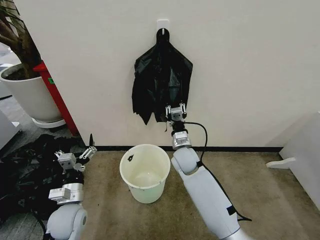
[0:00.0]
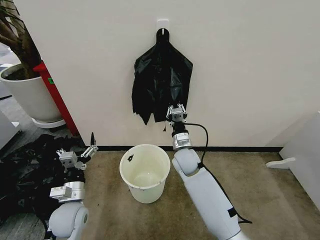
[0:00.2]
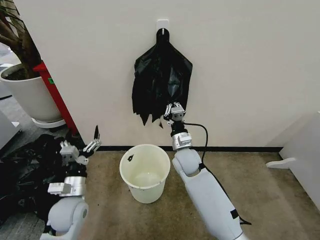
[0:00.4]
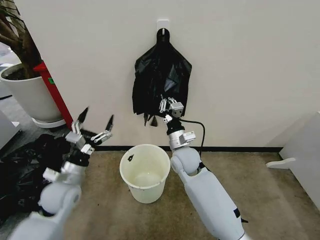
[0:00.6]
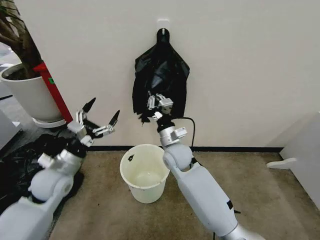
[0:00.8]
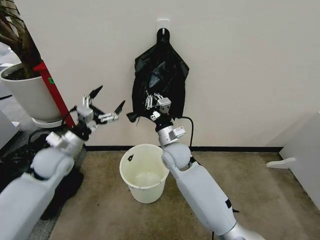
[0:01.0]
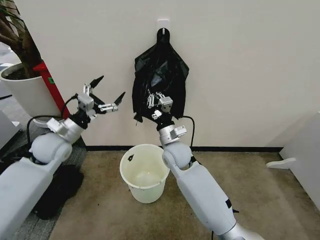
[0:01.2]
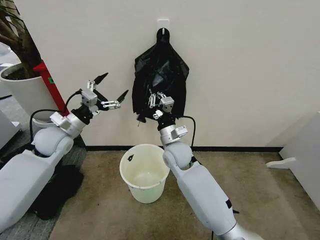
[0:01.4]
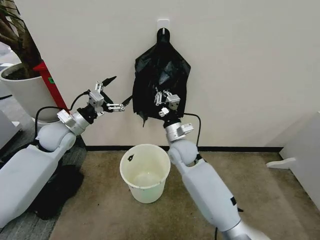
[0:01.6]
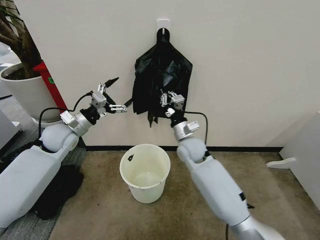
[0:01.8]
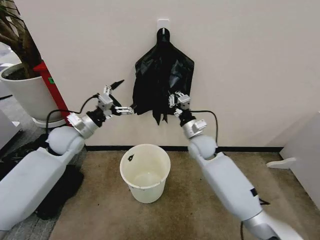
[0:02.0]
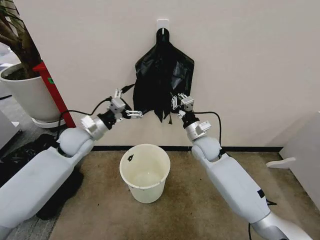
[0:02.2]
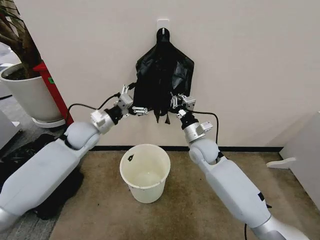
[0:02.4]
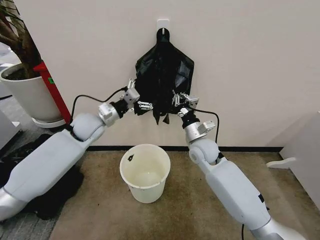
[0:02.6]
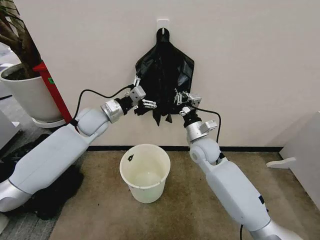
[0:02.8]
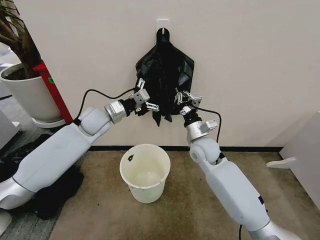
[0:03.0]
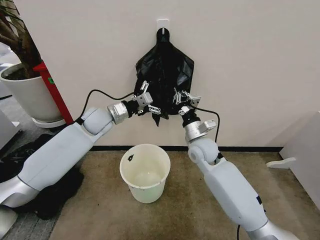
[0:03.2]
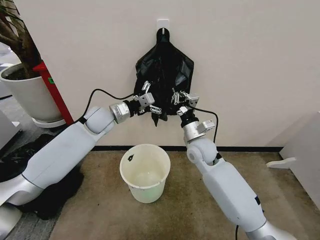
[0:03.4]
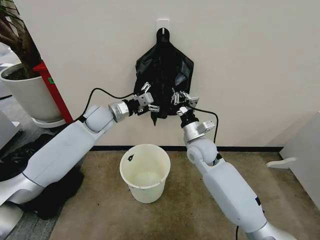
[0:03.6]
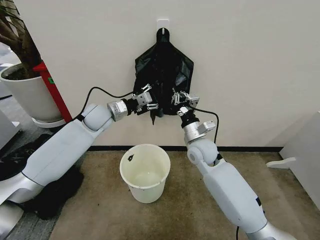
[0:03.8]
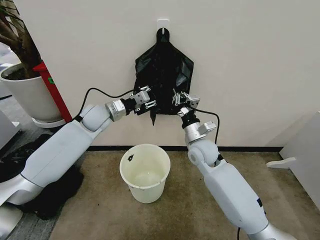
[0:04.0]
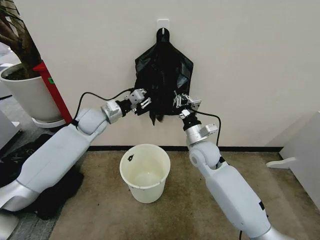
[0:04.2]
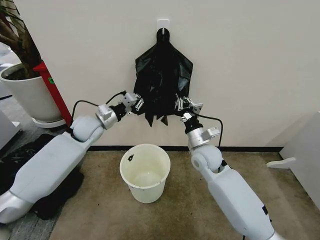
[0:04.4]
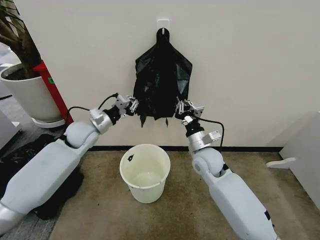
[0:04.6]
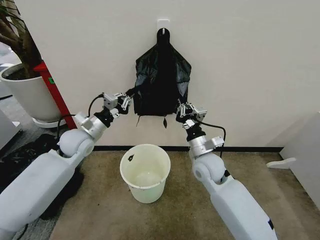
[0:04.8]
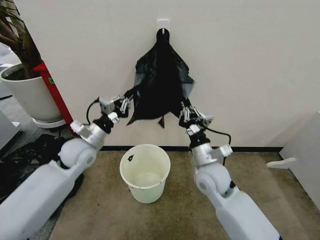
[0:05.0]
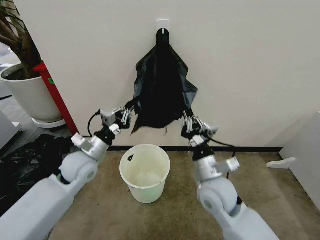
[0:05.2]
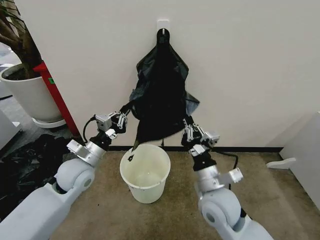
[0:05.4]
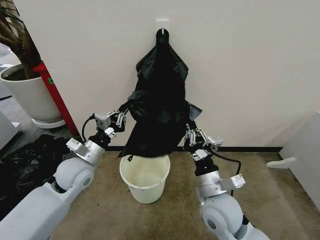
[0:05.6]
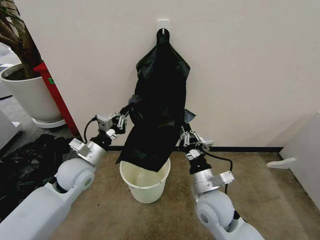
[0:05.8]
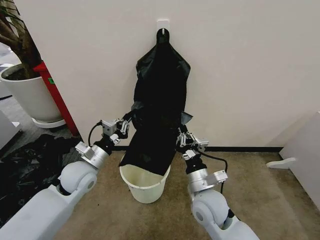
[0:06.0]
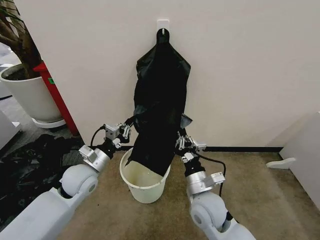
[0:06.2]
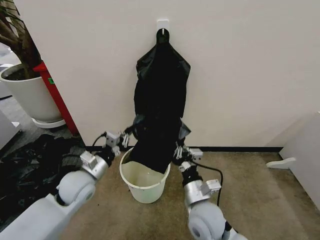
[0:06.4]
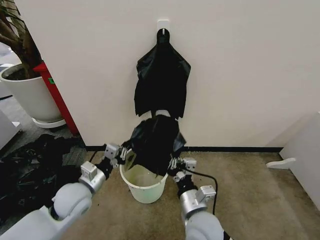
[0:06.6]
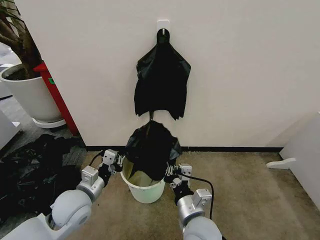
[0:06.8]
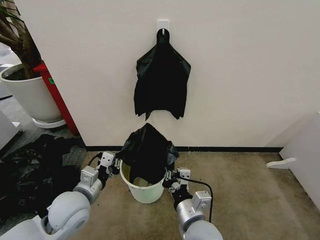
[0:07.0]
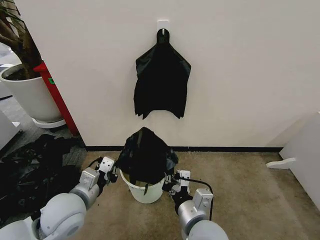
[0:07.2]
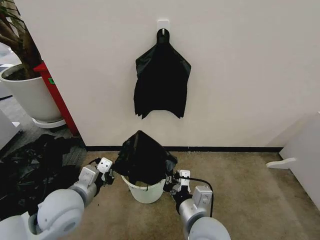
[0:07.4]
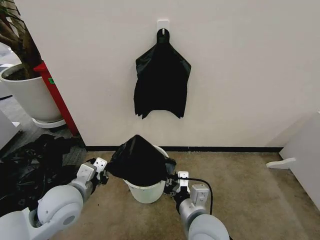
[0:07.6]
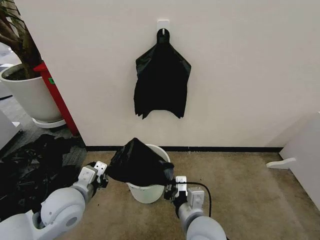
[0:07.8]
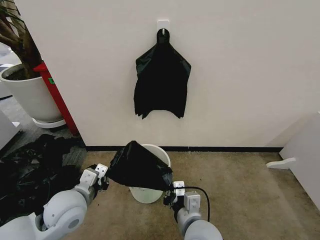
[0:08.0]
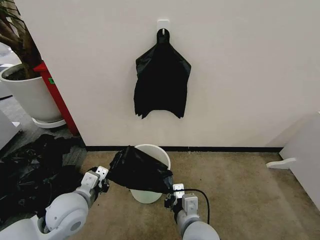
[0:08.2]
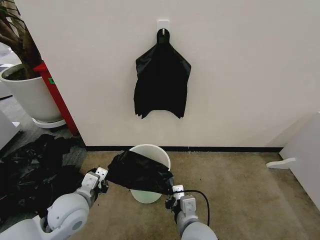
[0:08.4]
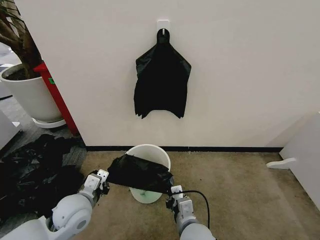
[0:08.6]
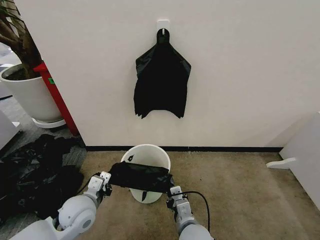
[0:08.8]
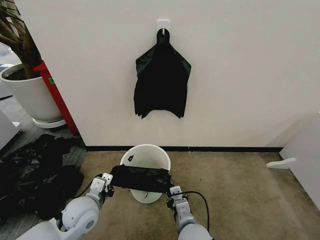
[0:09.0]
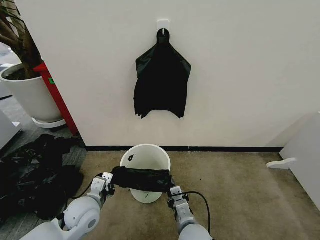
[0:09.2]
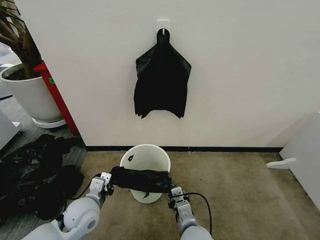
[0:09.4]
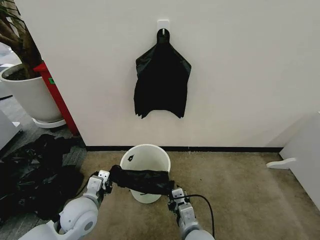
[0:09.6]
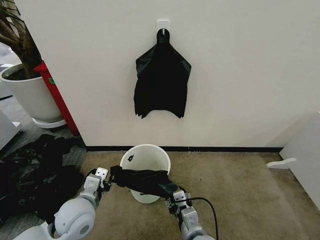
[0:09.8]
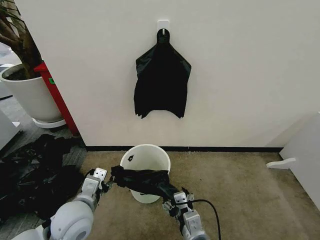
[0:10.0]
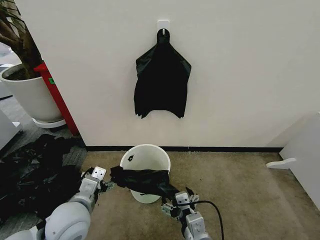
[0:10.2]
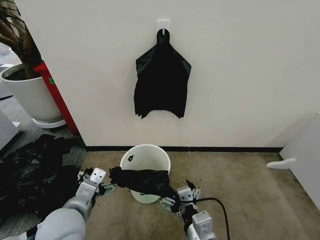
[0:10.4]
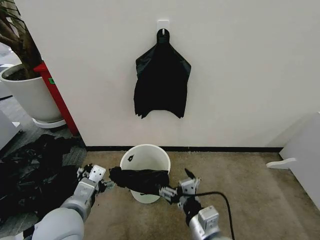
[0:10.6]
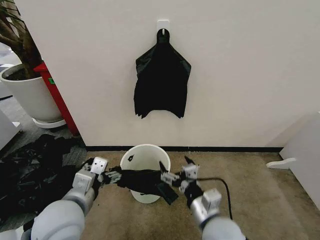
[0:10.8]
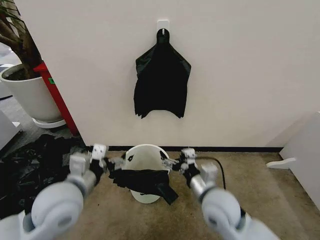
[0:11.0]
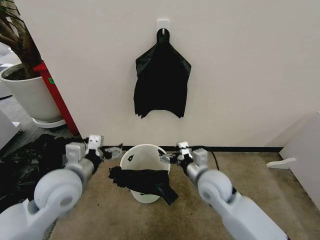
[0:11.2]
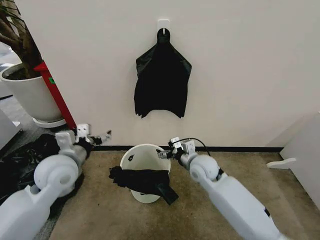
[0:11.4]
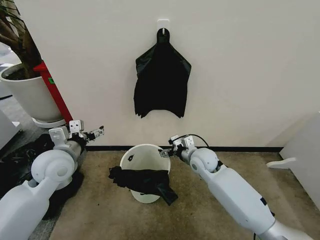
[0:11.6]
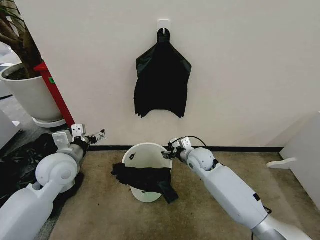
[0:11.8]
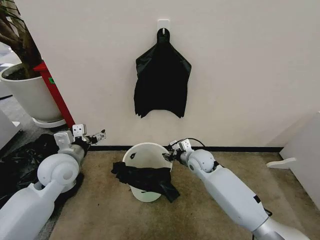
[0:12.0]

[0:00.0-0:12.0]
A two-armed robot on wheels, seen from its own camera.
Task of the whole recording: Place the garbage bag over the trash bin.
0.0 to 1.6 s: The right gripper travels upward by approximately 5 cm; the left gripper goes approximately 25 cm forward and upward.
1.6 to 3.0 s: The left gripper moves to the right and forward, roughly 15 cm, while the right gripper travels to the right by some 10 cm.
3.0 to 4.4 s: The left gripper closes up.
4.4 to 6.0 s: The right gripper travels backward by about 15 cm, while the left gripper shifts roughly 15 cm backward and downward.
6.0 to 7.6 s: The grippers both shift backward by some 10 cm.
7.6 to 9.0 s: Both grippers move downward, about 10 cm.
9.0 to 10.4 s: Both grippers move upward and backward, about 10 cm. The left gripper opens up; the right gripper opens its fingers.
10.4 to 12.0 s: The right gripper moves forward, about 30 cm, and closes up, while the left gripper heads forward and to the left, covering some 15 cm.

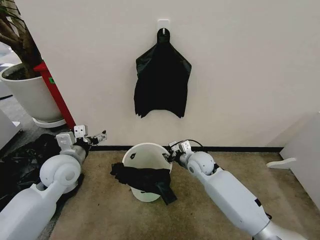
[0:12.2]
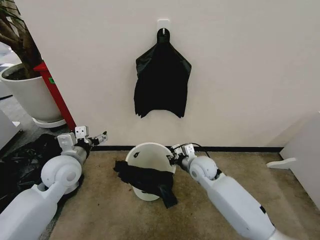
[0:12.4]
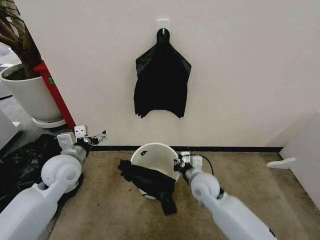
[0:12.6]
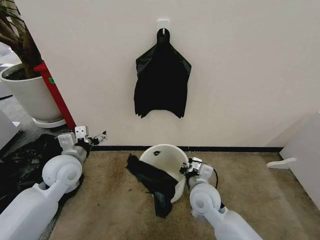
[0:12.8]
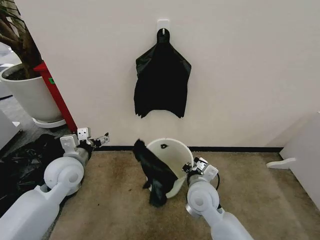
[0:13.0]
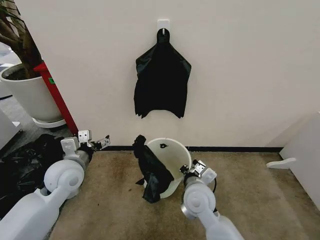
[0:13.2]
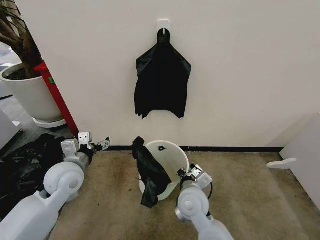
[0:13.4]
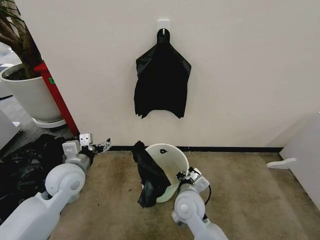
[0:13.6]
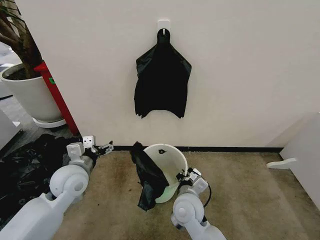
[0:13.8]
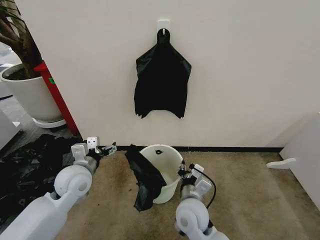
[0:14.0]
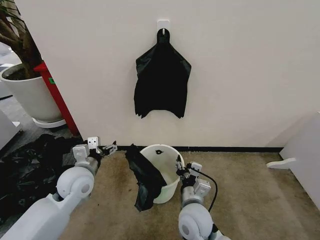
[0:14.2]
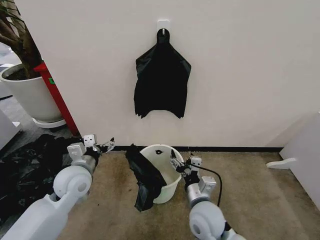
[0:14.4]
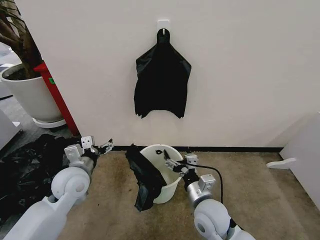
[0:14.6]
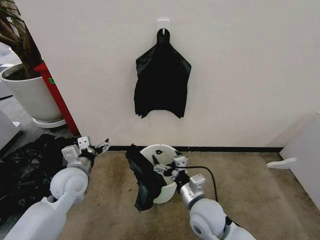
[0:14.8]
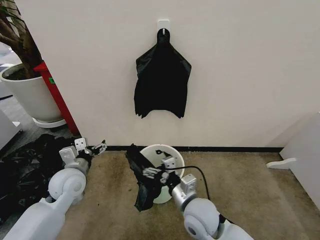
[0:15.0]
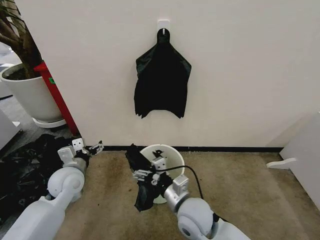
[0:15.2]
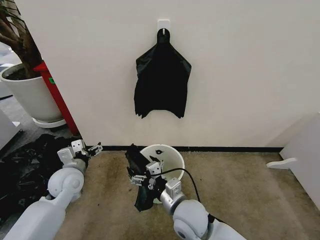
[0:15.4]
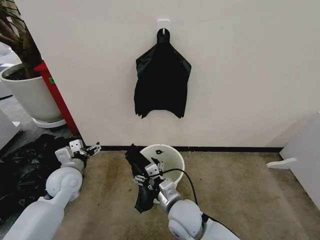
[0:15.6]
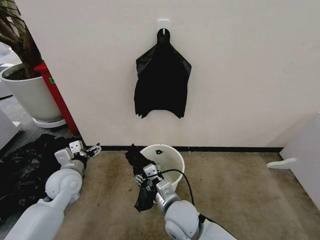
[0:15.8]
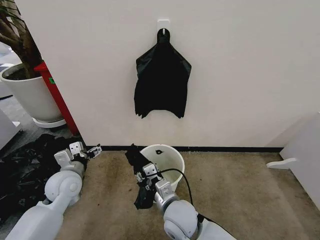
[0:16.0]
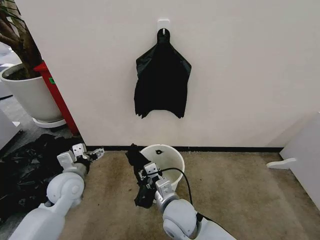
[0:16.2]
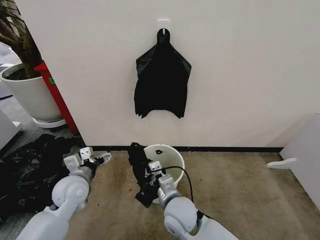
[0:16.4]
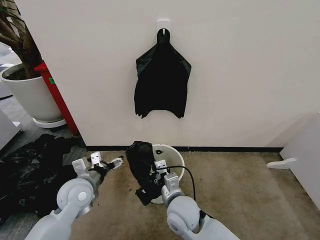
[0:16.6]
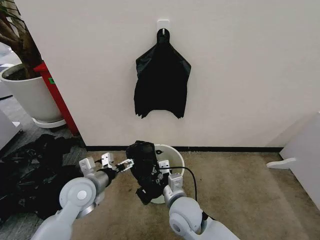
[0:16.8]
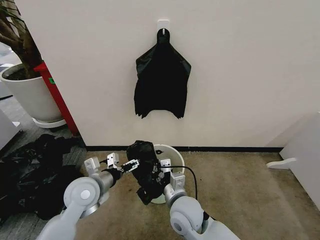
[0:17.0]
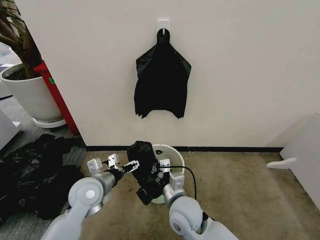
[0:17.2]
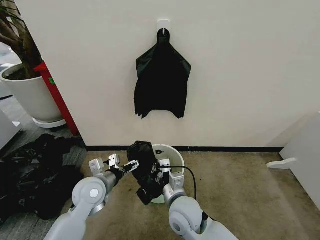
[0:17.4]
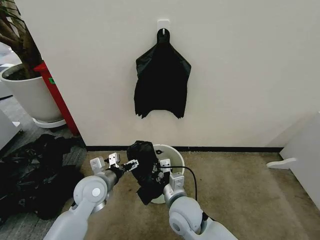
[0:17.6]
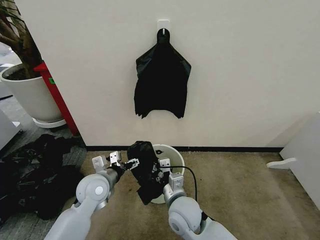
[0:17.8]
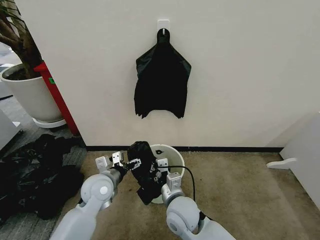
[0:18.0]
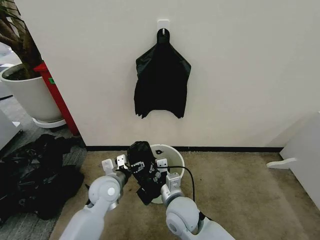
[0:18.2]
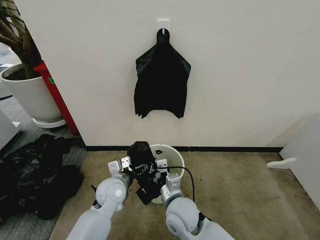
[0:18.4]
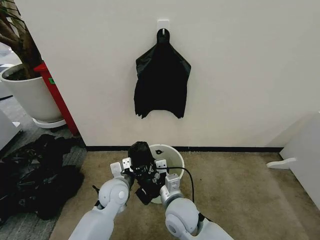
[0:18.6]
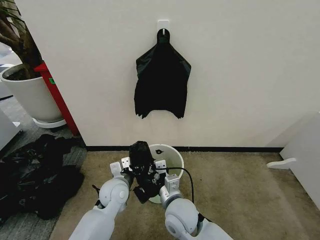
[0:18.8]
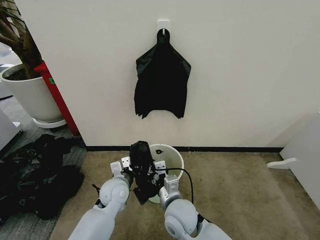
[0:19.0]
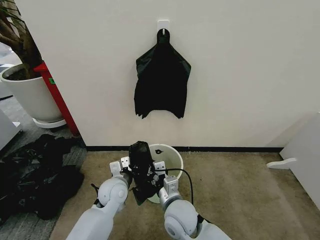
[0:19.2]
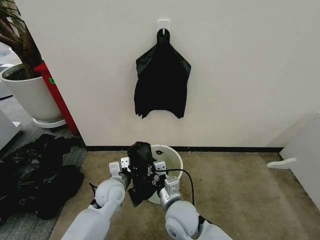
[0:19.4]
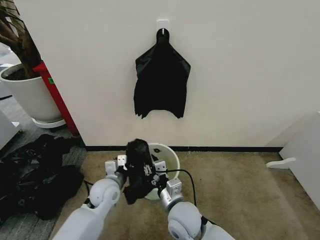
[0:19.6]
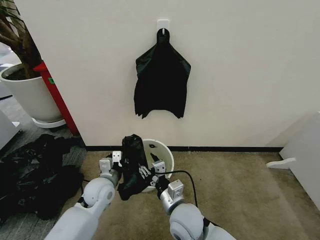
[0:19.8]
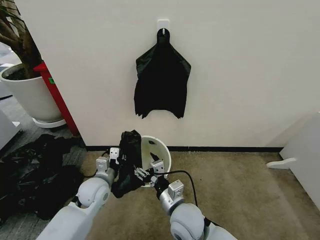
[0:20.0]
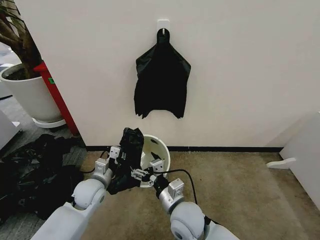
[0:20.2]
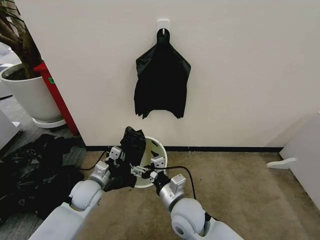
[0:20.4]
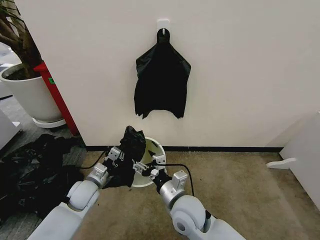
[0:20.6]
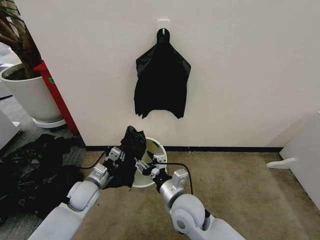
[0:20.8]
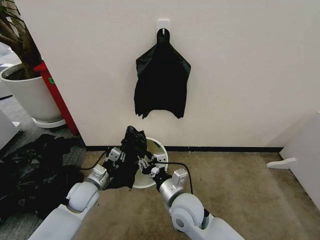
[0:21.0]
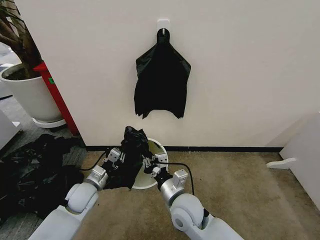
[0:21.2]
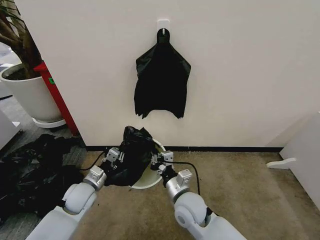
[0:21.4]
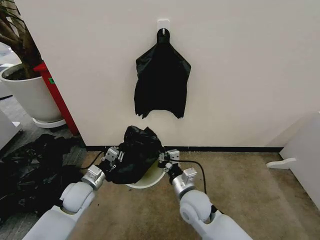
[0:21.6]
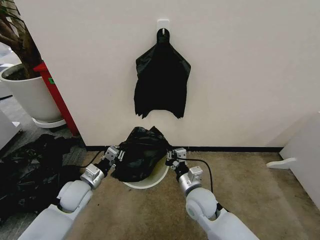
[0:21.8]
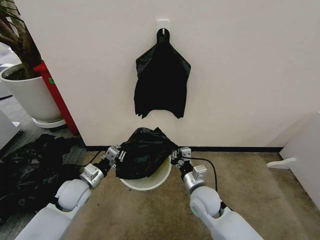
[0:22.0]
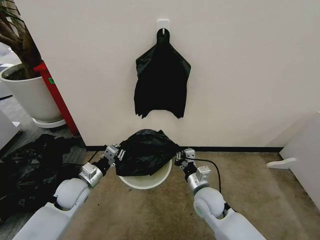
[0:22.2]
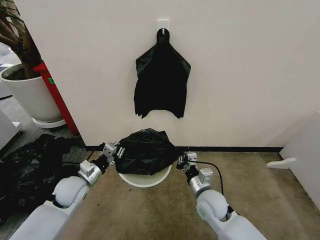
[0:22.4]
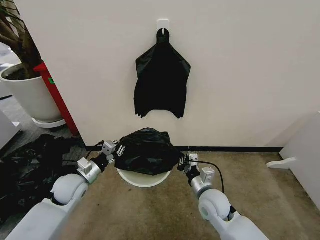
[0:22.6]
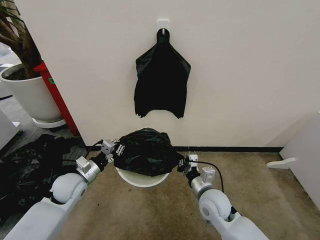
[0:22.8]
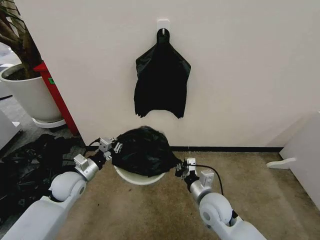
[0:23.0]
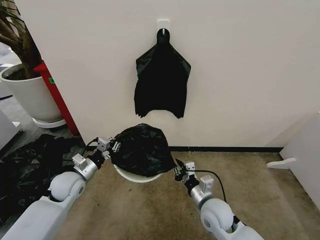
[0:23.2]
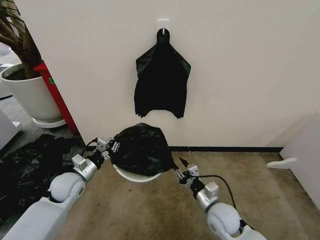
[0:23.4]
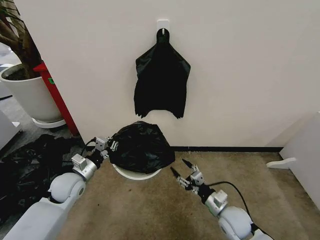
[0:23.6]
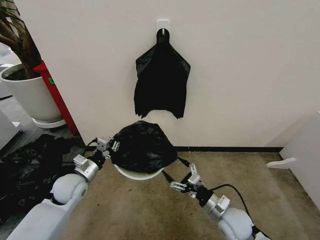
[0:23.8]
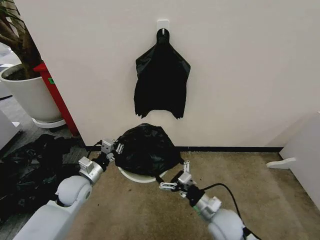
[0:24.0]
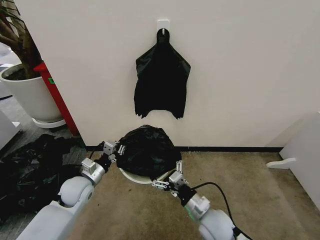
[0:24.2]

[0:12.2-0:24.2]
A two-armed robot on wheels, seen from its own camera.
Task of the whole recording: Place the garbage bag over the trash bin.
12.2 to 13.8 s: The right gripper is displaced backward and to the left by roughly 15 cm.
13.8 to 15.2 s: The right gripper moves roughly 5 cm, and opens; the left gripper shifts by some 5 cm.
15.2 to 16.6 s: The left gripper shifts by approximately 5 cm, while the right gripper closes its fingers.
16.6 to 18.2 s: The left gripper travels to the right by approximately 5 cm.
18.2 to 19.8 s: The right gripper opens its fingers. The left gripper closes.
19.8 to 21.2 s: The right gripper closes, while the left gripper goes about 5 cm to the left.
21.2 to 22.6 s: The left gripper ends up some 5 cm from where it was. The right gripper shifts about 10 cm to the right.
22.6 to 24.2 s: The right gripper moves backward, some 5 cm, moves some 10 cm to the right and comes back, and opens its fingers.
